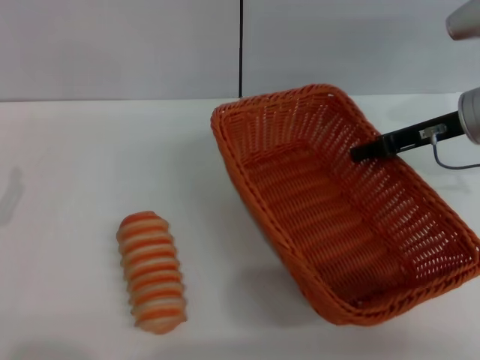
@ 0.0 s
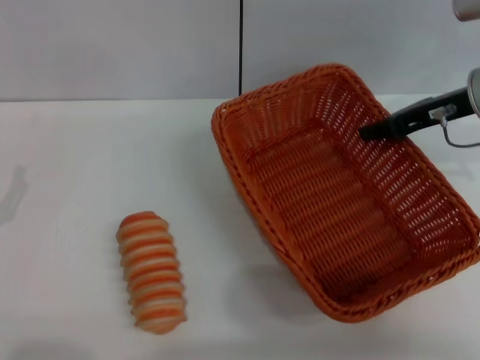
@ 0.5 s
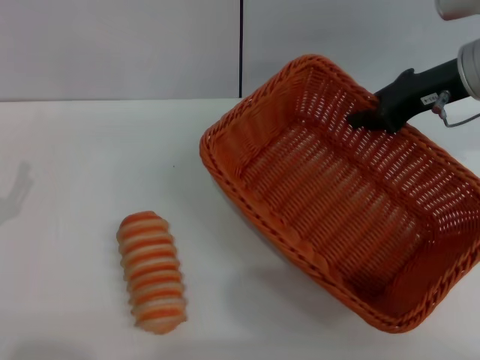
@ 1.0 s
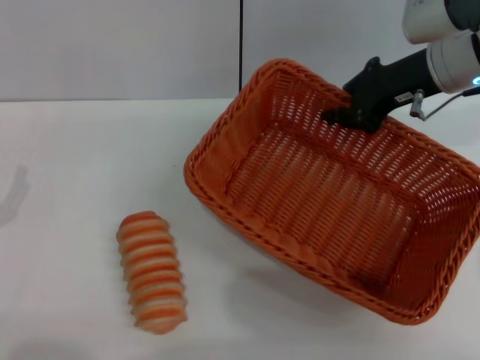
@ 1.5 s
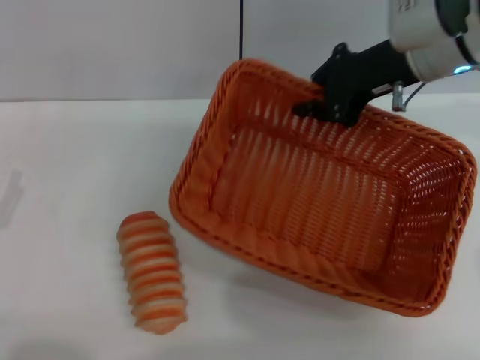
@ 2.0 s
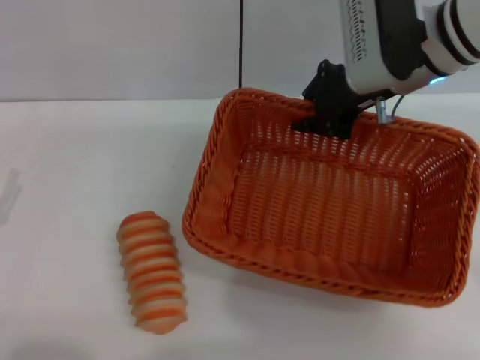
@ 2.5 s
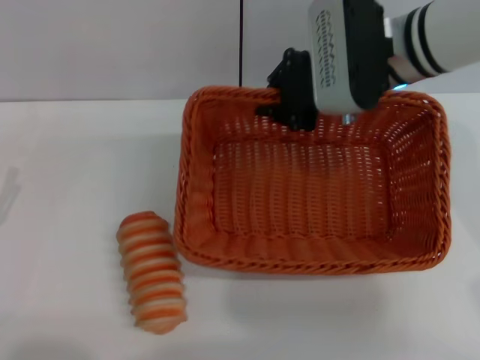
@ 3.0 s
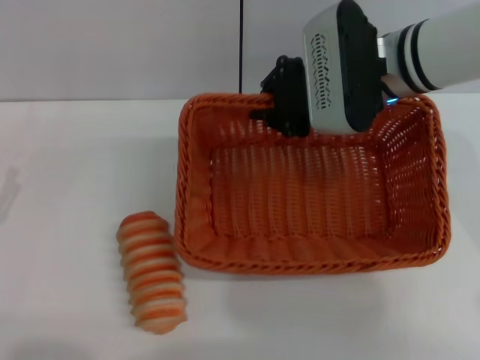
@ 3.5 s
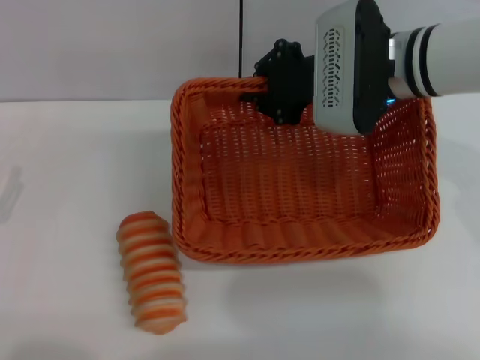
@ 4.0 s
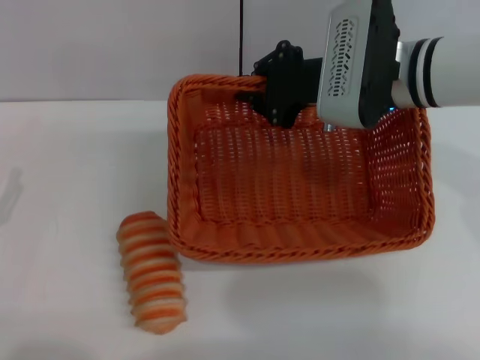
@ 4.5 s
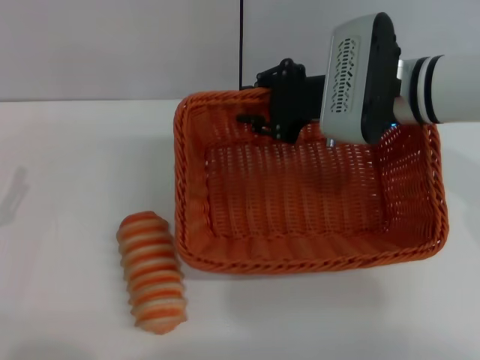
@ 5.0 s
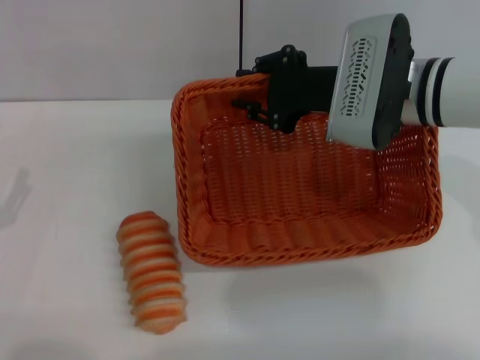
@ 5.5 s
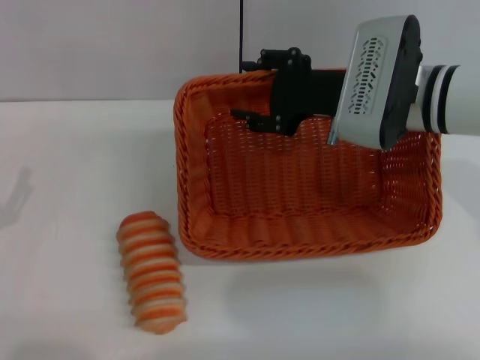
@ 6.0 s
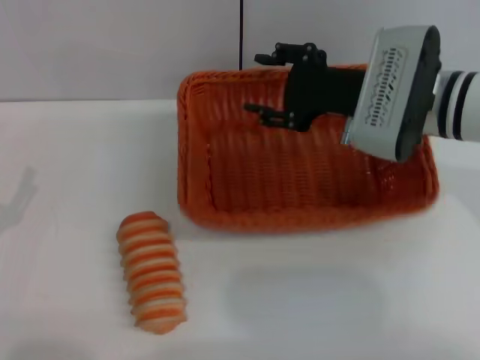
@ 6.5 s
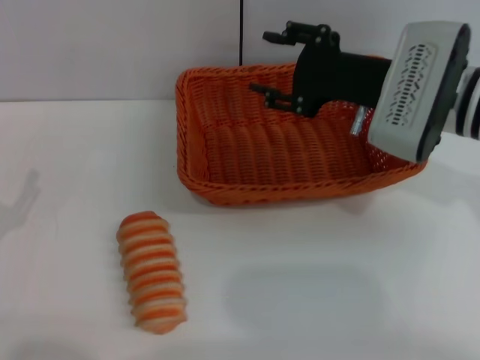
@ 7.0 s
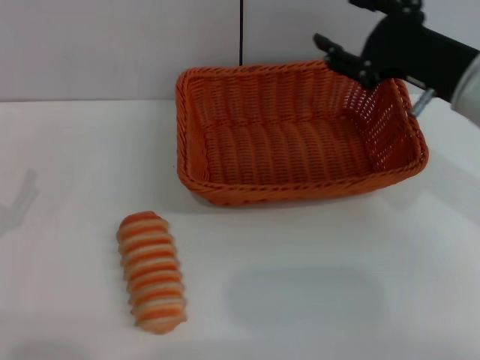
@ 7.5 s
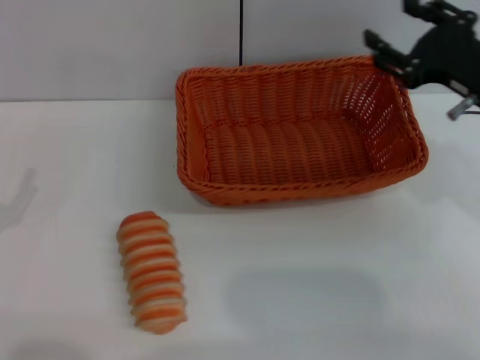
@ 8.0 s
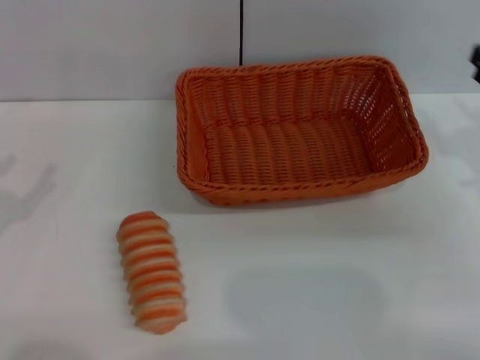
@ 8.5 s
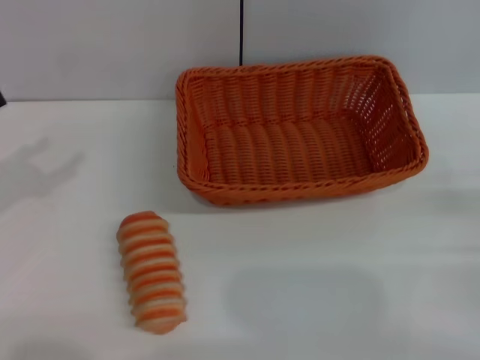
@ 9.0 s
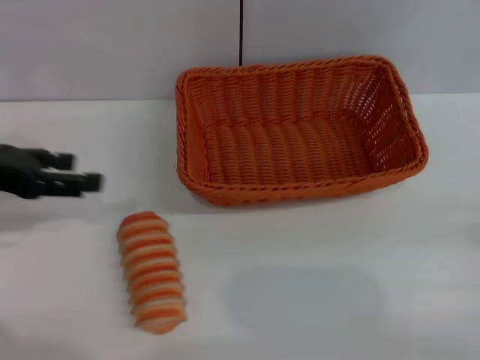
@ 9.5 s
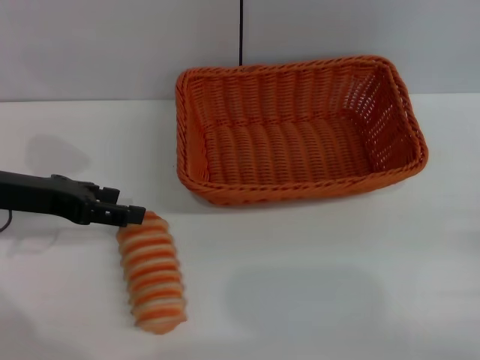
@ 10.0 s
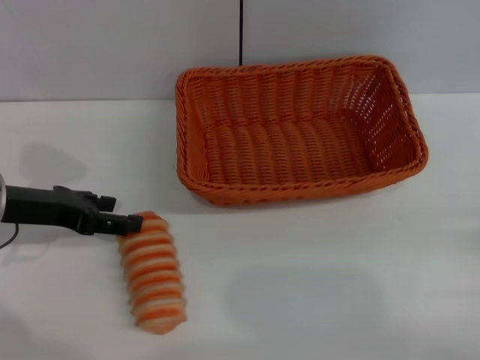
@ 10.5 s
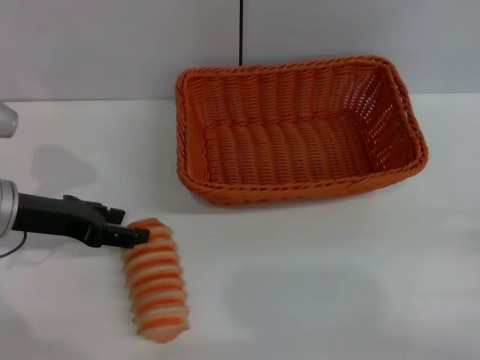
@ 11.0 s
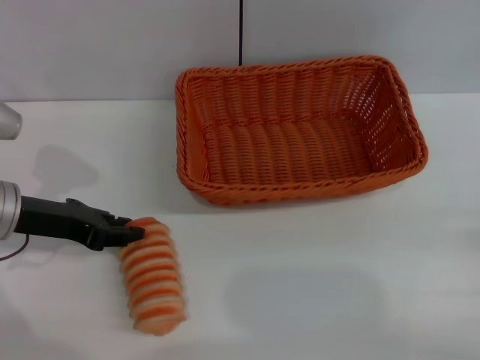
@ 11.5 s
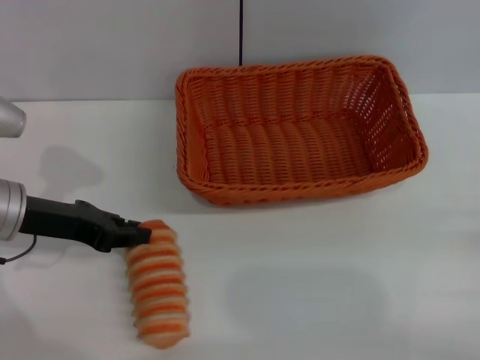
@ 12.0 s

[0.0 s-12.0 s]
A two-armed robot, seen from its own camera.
Step, 1.5 to 6.5 s: Place the light basket in the center of view with the right gripper.
0.0 to 2.0 s: The right gripper moves to the left and upward, about 10 cm.
2.0 to 4.0 s: The right gripper heads to the left, covering some 5 cm.
4.0 to 6.0 s: The right gripper opens up.
6.0 to 8.0 s: The right gripper moves to the right and backward, approximately 10 cm.
8.0 to 10.0 s: The right gripper heads backward, to the right and downward, covering about 25 cm. Meanwhile the left gripper goes some 15 cm forward, upward and to the right.
10.0 to 12.0 s: The left gripper closes its fingers.

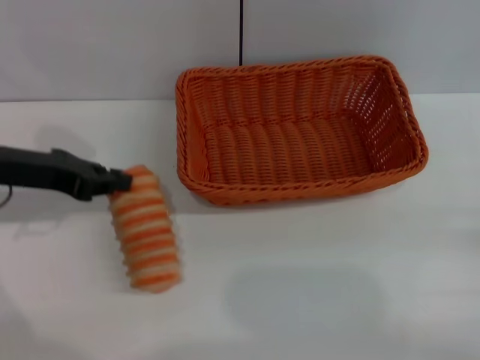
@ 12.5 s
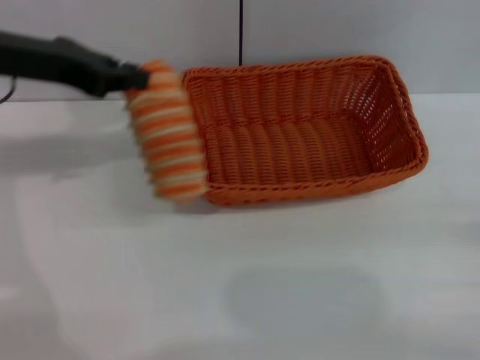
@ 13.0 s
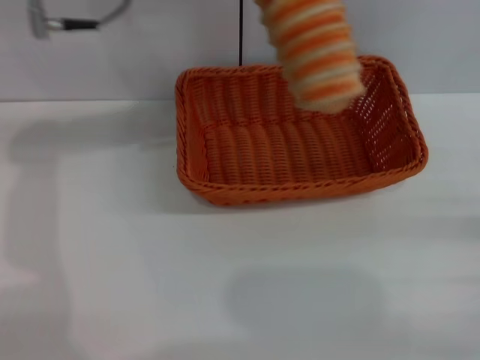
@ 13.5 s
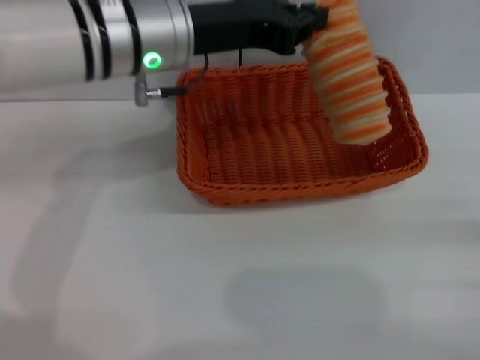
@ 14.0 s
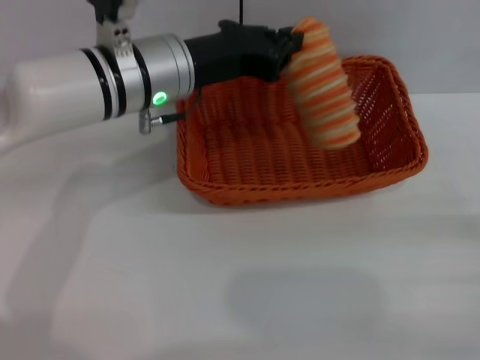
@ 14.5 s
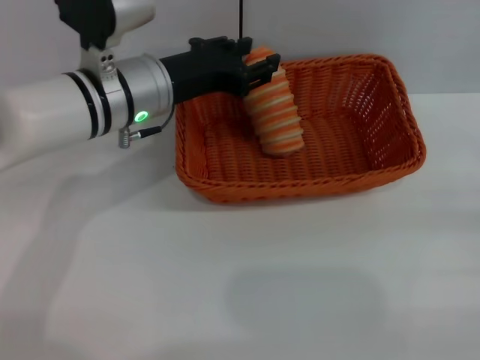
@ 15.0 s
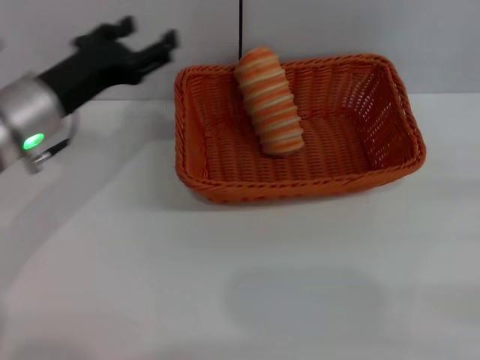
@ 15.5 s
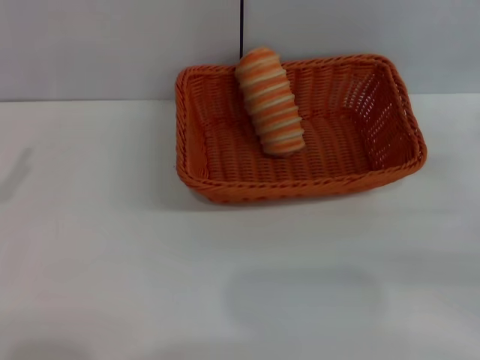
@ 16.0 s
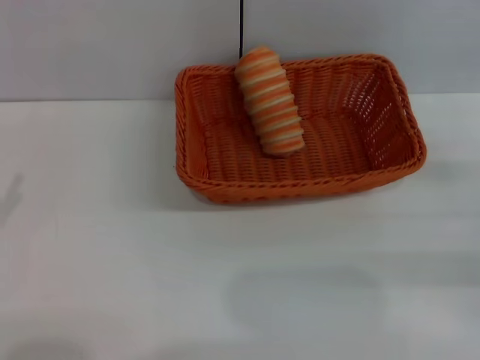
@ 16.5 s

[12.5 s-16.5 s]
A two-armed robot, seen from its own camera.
Step, 13.0 to 15.0 s: Place the long bread into the light basket with the left gripper.
12.5 to 14.5 s: The left gripper travels to the right by some 15 cm.
14.5 to 16.5 s: The left gripper goes roughly 35 cm to the left and backward, and opens up. Meanwhile the right gripper shifts roughly 10 cm forward.

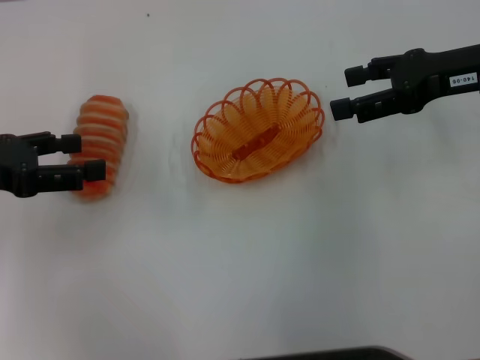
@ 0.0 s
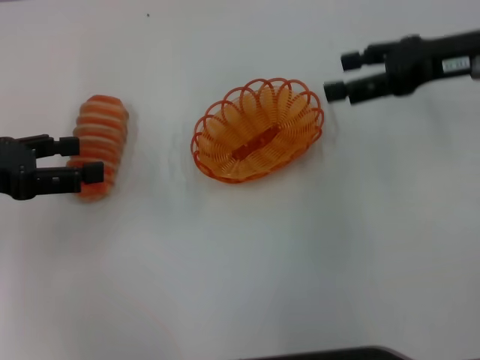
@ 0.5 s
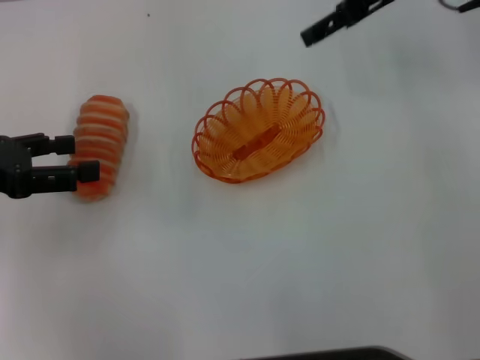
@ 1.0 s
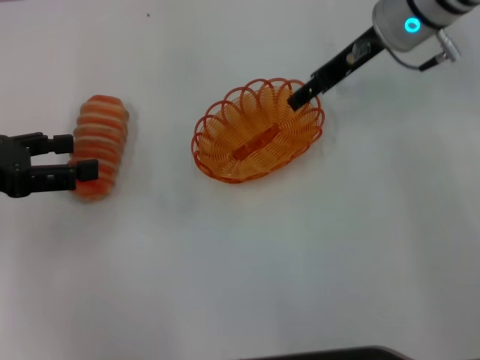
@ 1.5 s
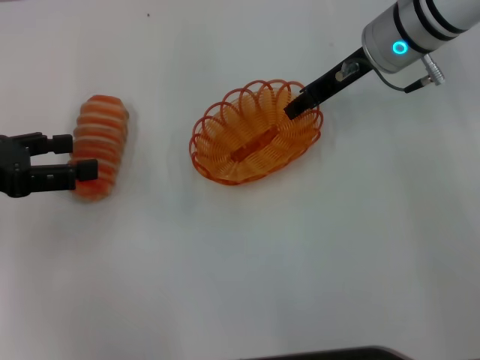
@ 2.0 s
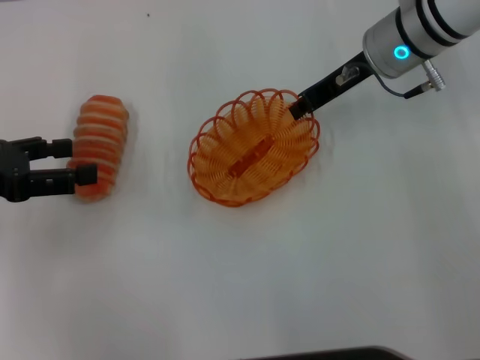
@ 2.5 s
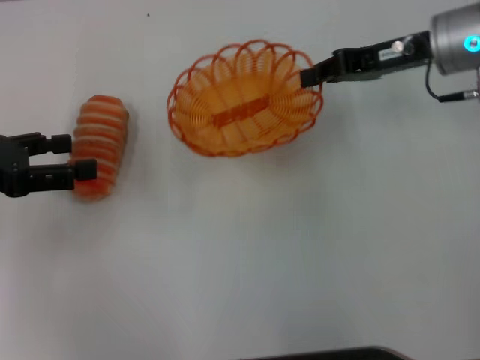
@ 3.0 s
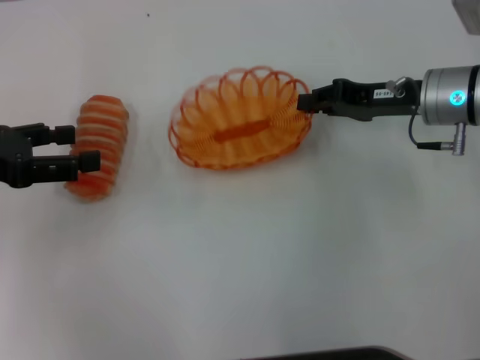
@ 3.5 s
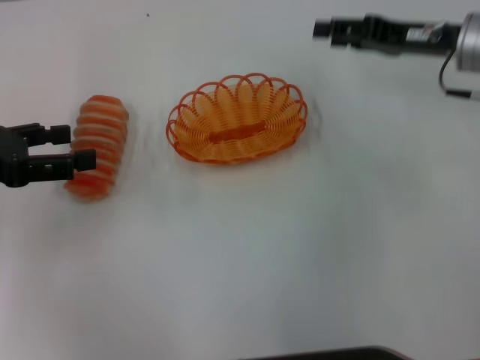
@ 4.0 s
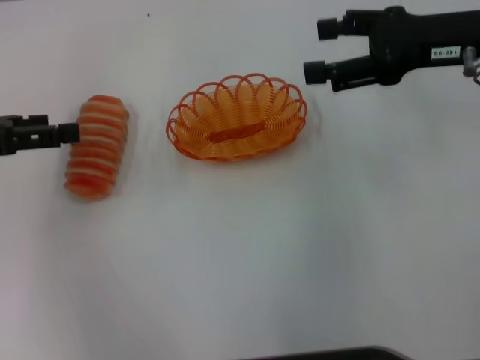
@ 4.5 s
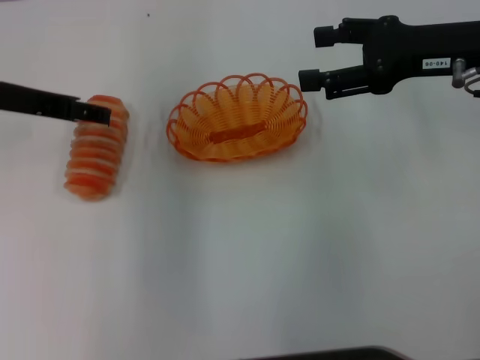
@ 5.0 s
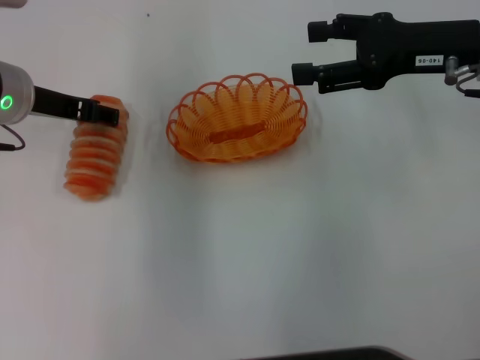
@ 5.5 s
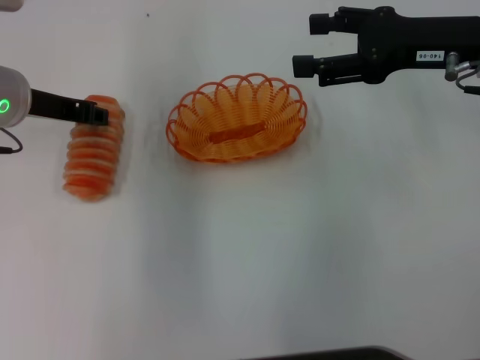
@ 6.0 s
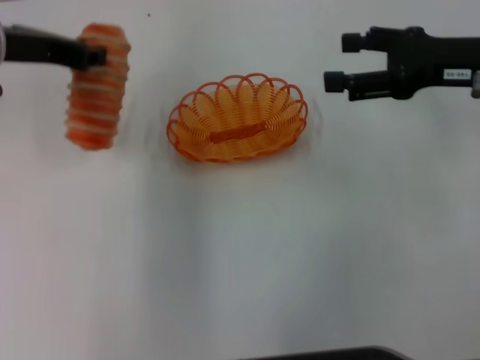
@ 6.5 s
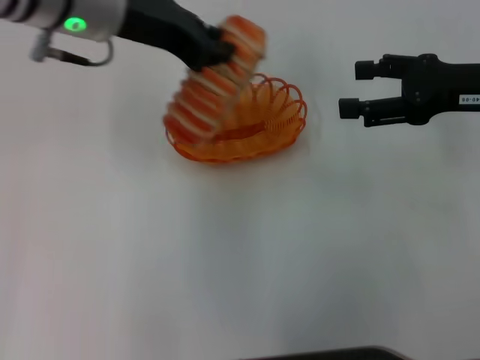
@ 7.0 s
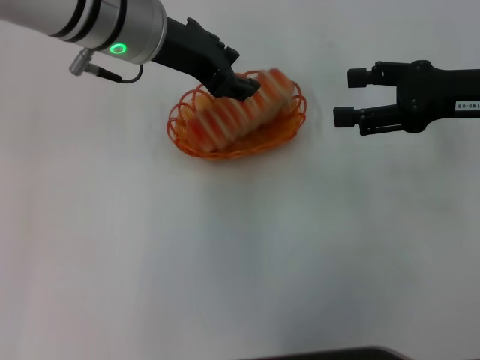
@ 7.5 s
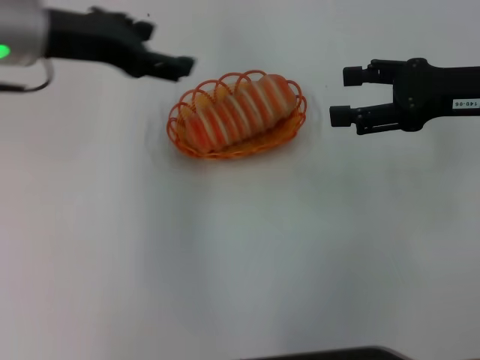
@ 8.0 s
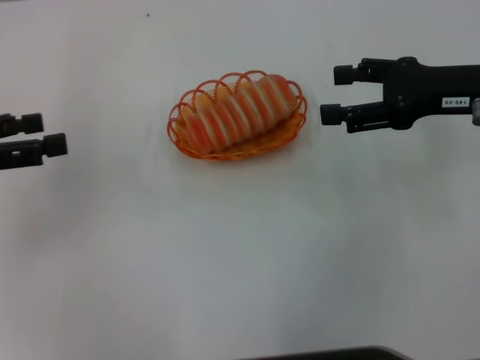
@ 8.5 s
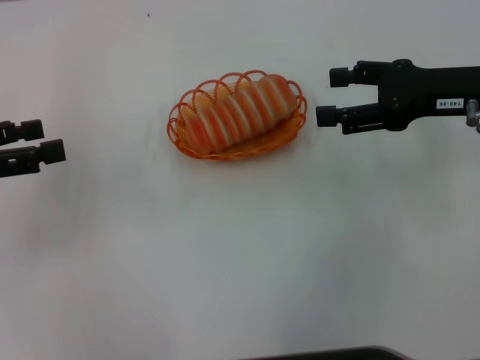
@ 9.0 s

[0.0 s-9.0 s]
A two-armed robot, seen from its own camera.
Step, 0.0 to 2.5 s: Pick up the basket with the right gripper.
Step, 3.0 to 3.5 s: Place the basket in the center of view with the right gripper.
Step, 4.0 to 6.0 s: Pick up the long bread with the left gripper.
Step, 6.5 to 8.0 s: Place the long bread into the basket with the left gripper.
0.0 to 2.0 s: The right gripper shifts approximately 15 cm to the left and forward.
2.0 to 4.5 s: The right gripper shifts approximately 10 cm to the right and backward, and closes, then opens again.
4.5 to 7.0 s: The left gripper goes about 20 cm to the right, and closes up, while the right gripper moves about 5 cm.
7.0 to 9.0 s: The left gripper heads to the left and backward, covering approximately 25 cm, and opens its fingers.
